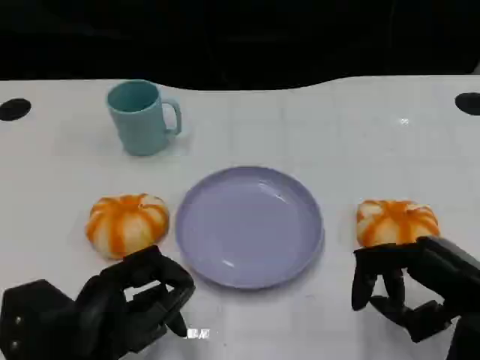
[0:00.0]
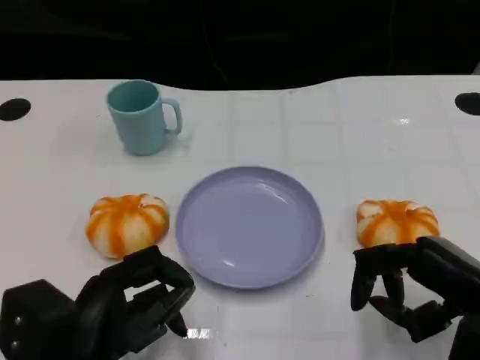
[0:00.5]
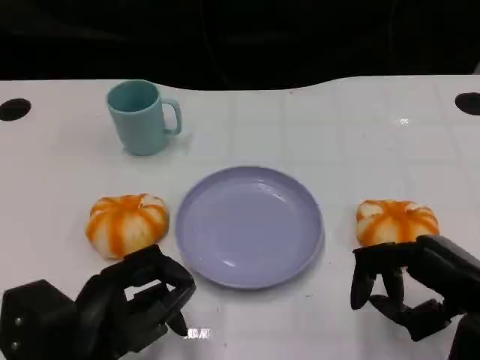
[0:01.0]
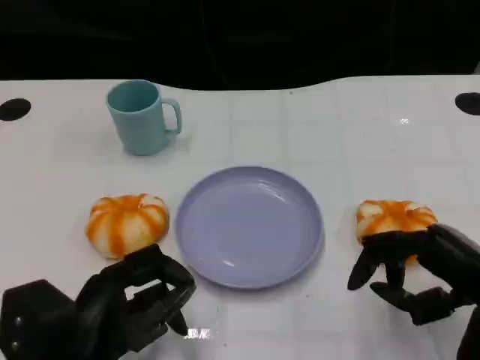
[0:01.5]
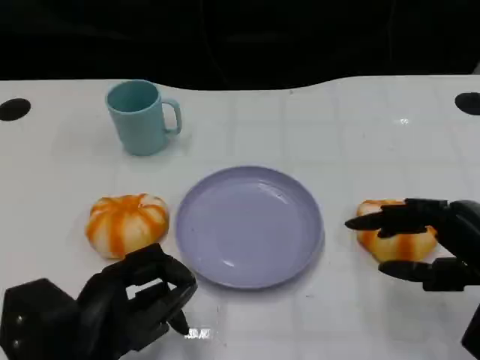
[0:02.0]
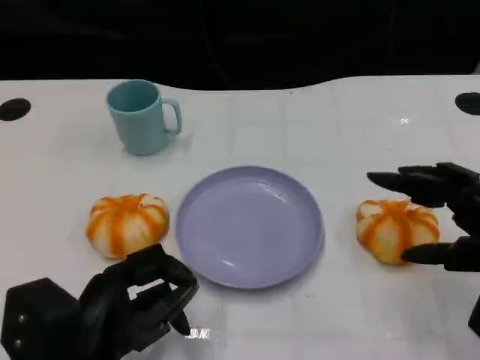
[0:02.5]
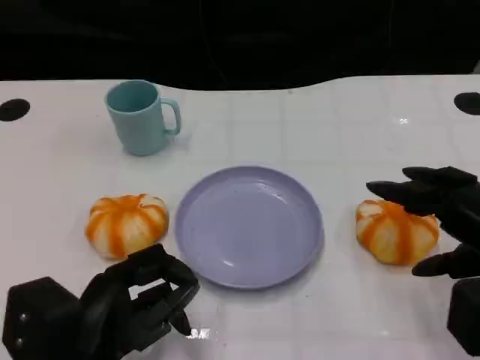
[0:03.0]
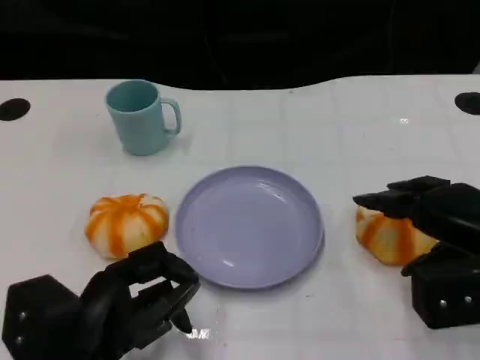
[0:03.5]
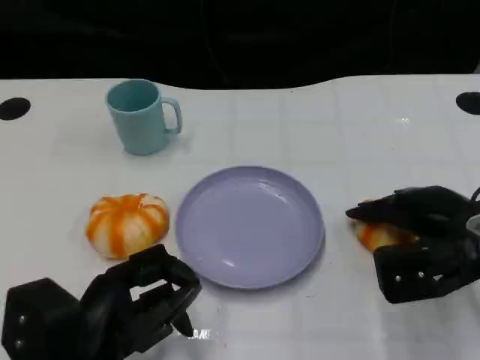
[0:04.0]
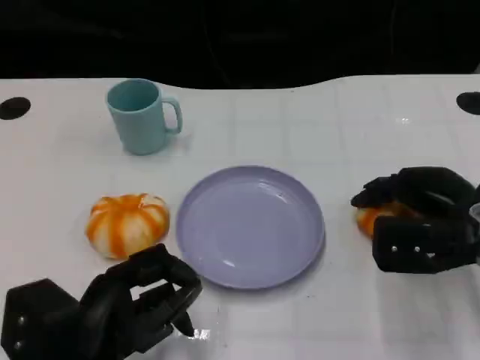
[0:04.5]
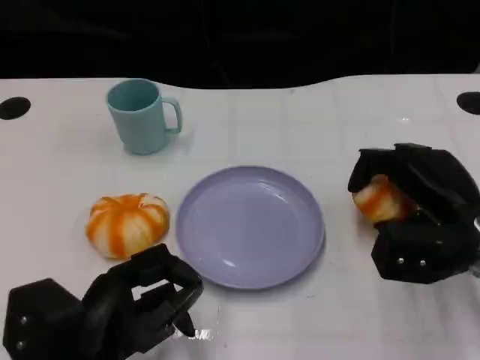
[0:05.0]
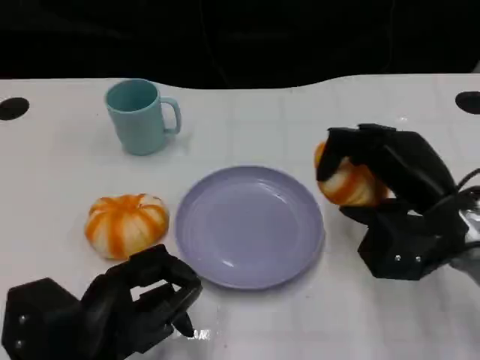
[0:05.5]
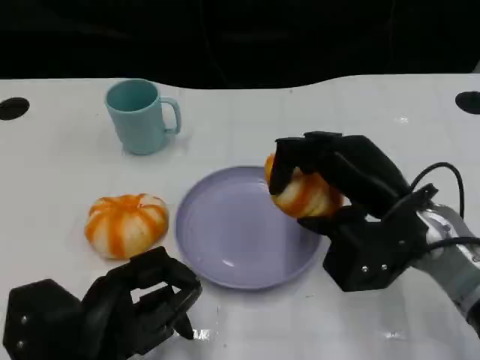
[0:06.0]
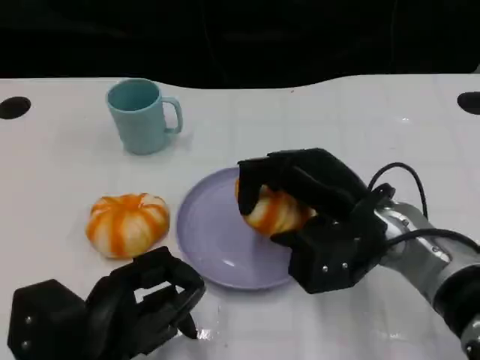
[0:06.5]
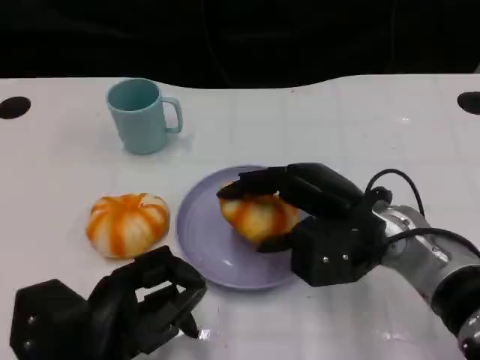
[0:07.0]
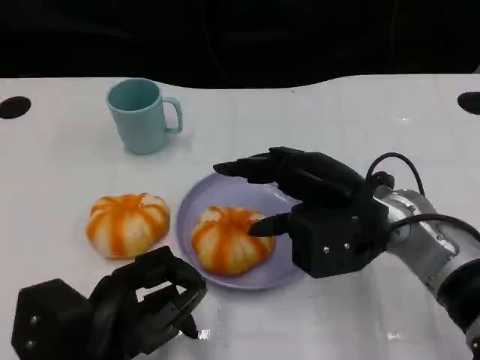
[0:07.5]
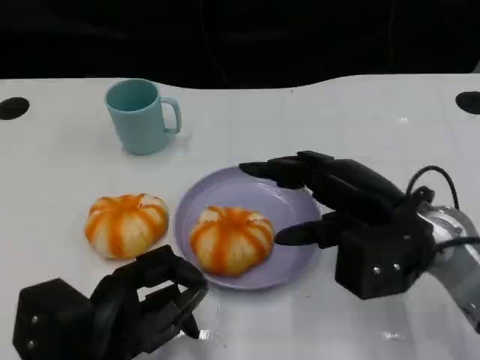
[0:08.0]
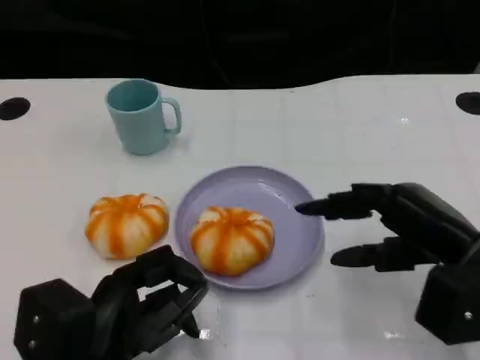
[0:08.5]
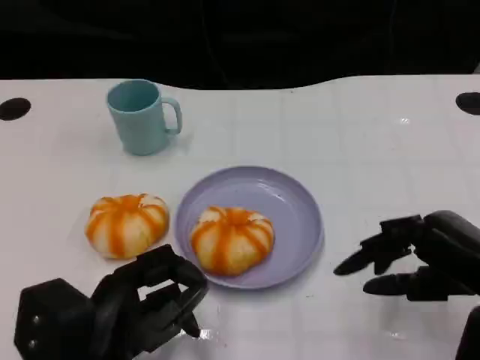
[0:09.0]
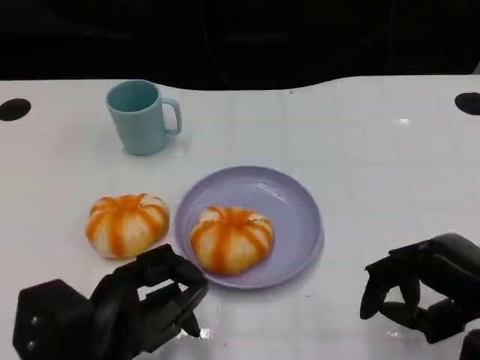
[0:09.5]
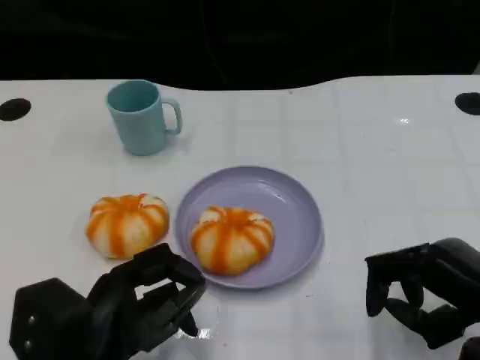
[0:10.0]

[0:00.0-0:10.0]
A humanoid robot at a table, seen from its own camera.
Task of the whole recording: Grasp the bread from the table and place it into the plate.
0:00.0 to 0:02.0: There are only small adjustments of the hands.
0:02.0 to 0:04.0: The right hand is displaced forward by about 10 cm.
0:04.0 to 0:06.0: The right hand heads to the left, covering some 5 cm.
0:06.0 to 0:08.0: The hands stay close to where they were, moving slightly.
0:08.0 to 0:10.0: The right hand is displaced to the right and backward by about 10 cm.

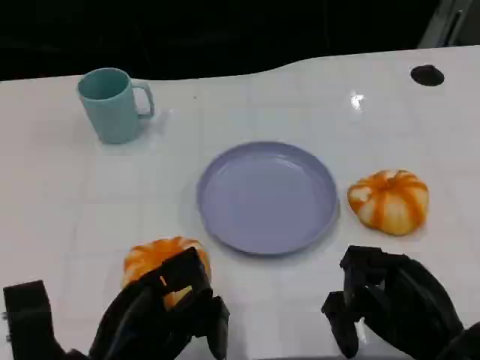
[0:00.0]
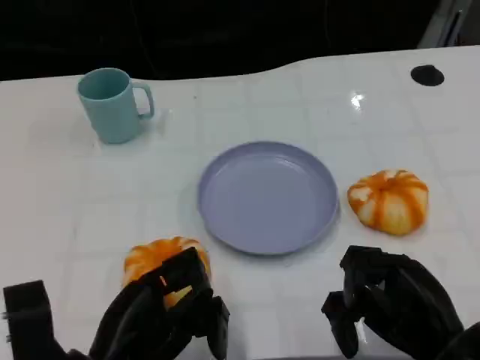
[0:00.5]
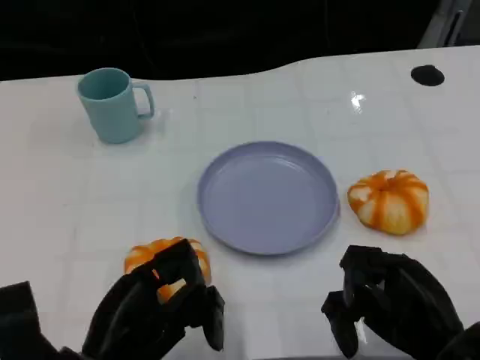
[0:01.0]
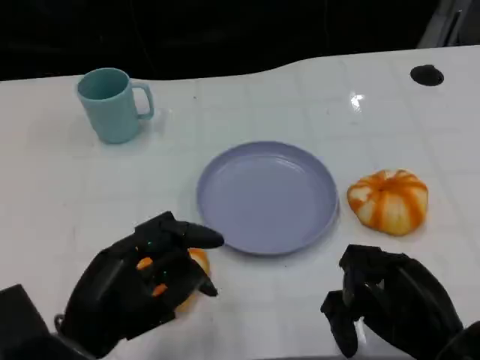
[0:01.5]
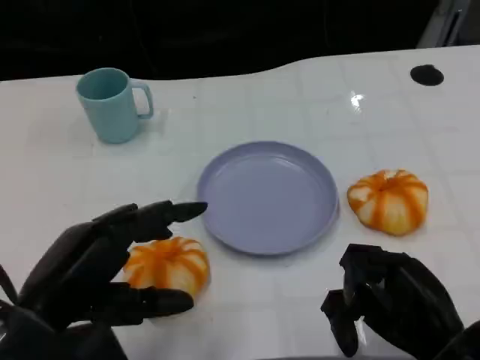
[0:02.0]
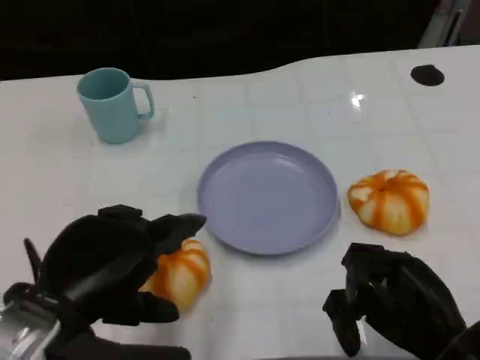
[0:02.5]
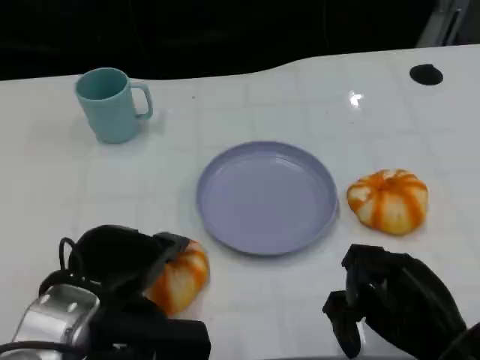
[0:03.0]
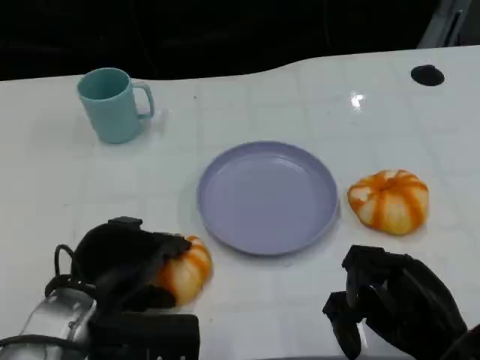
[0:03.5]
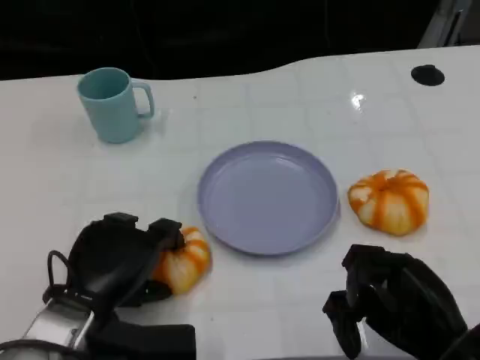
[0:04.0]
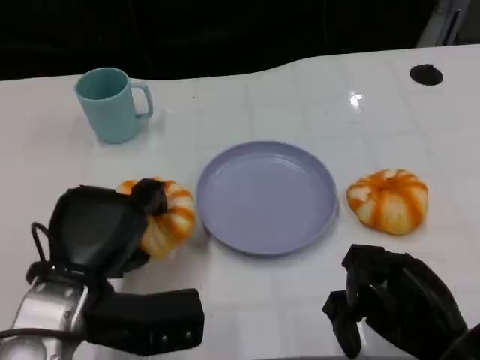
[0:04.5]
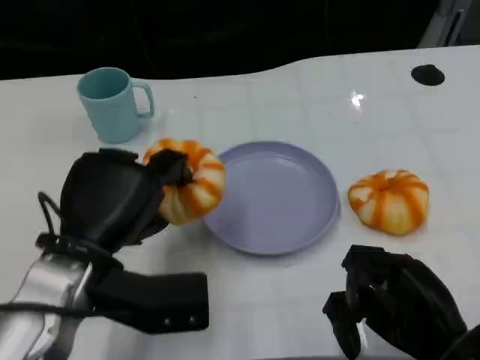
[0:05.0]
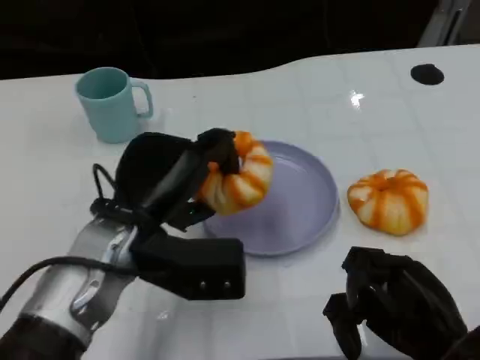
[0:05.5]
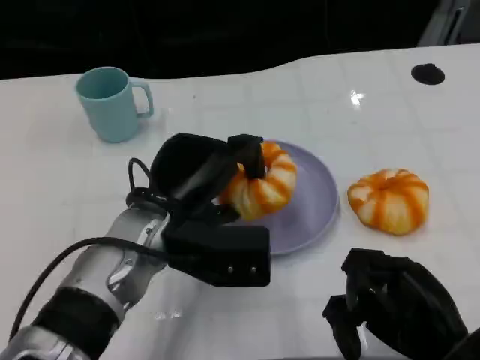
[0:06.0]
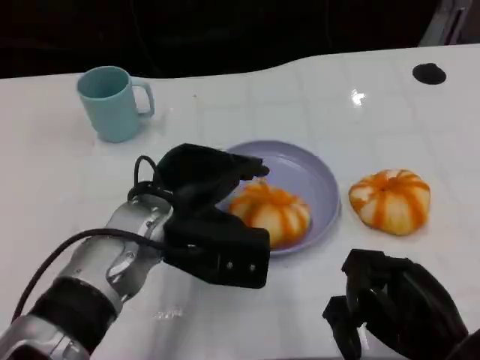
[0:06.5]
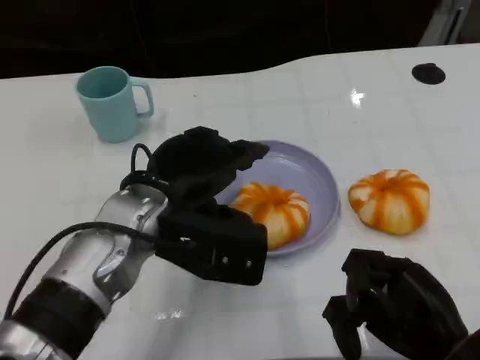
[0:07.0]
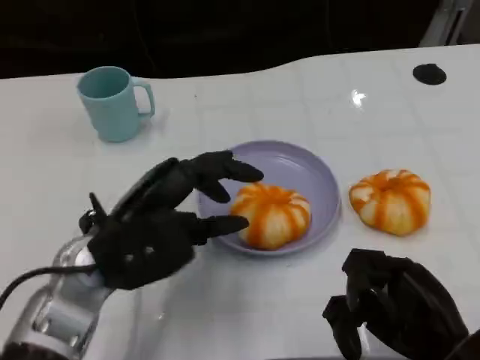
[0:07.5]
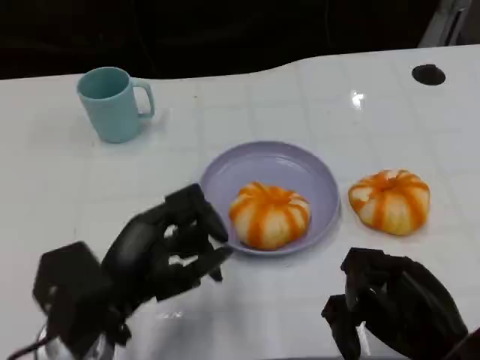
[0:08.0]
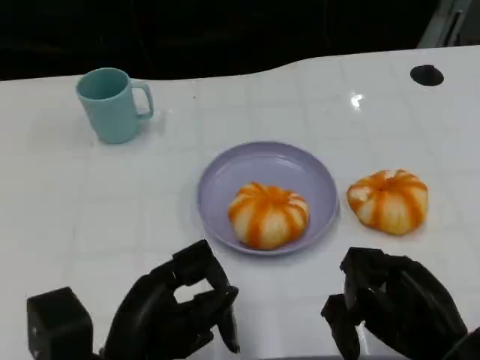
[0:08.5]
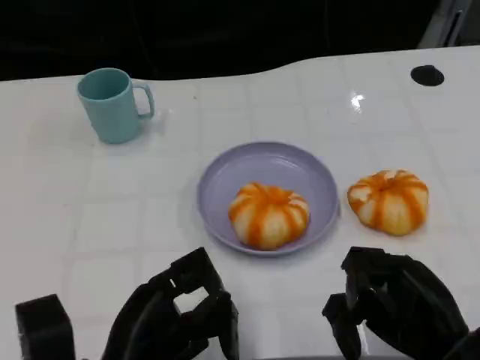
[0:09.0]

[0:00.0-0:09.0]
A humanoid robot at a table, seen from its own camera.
Task of the whole recording: Grasp the bread from the table and place it into the plate.
0:00.0 to 0:02.0: The left hand heads upward, covering approximately 10 cm.
0:02.0 to 0:04.5: The left hand heads forward, covering about 5 cm.
0:04.5 to 0:07.0: The left hand heads to the right and forward, covering approximately 10 cm.
0:07.0 to 0:09.0: The left hand goes approximately 15 cm backward and downward.

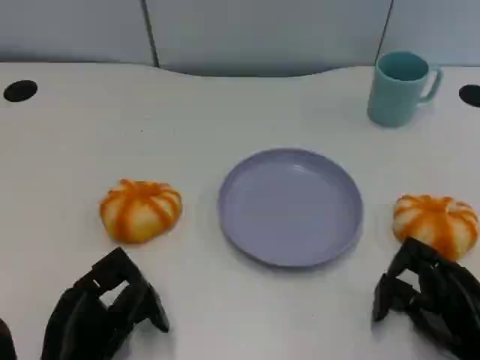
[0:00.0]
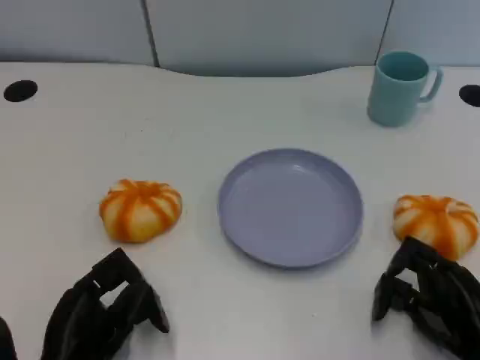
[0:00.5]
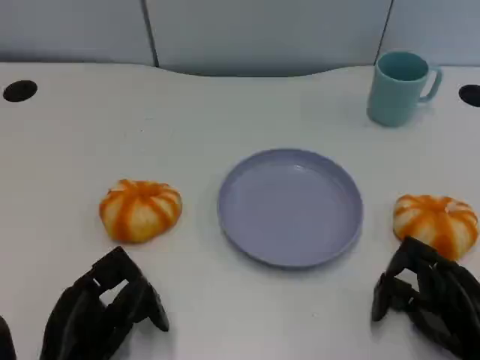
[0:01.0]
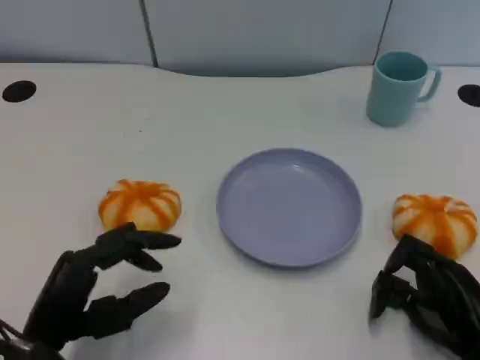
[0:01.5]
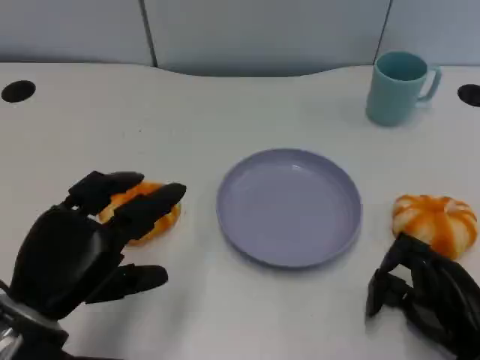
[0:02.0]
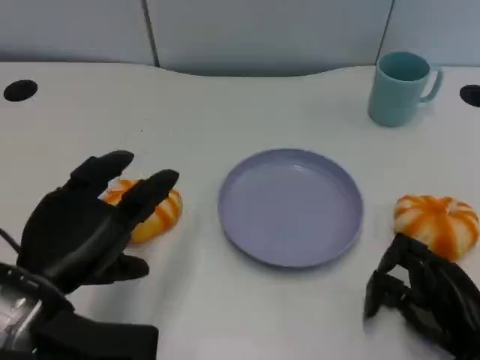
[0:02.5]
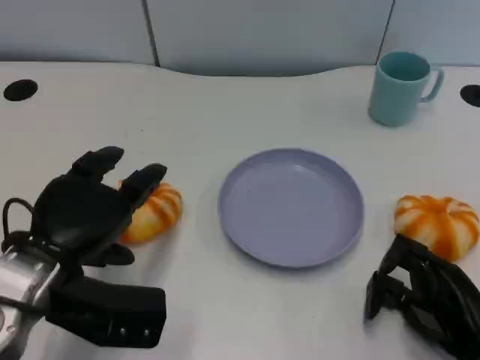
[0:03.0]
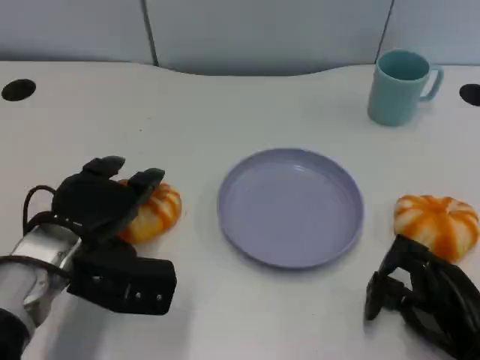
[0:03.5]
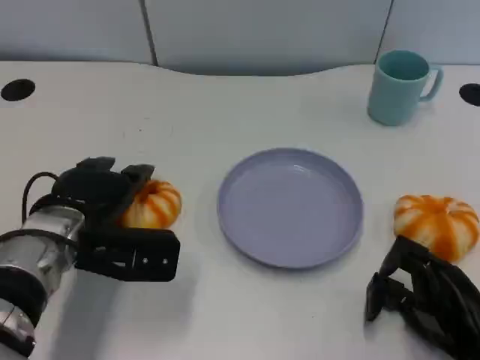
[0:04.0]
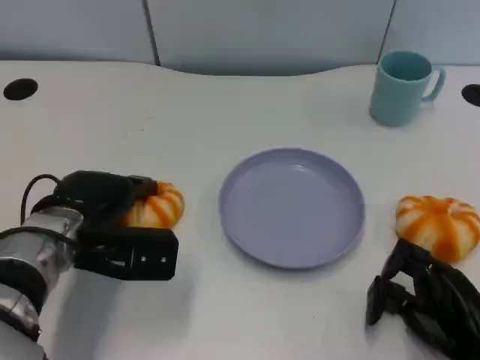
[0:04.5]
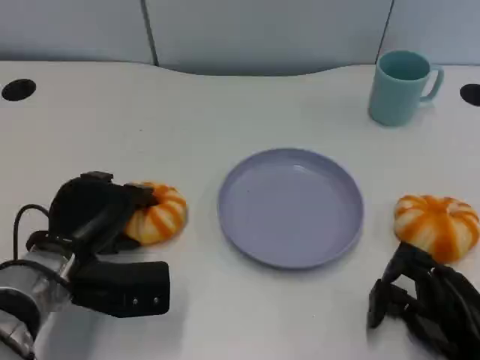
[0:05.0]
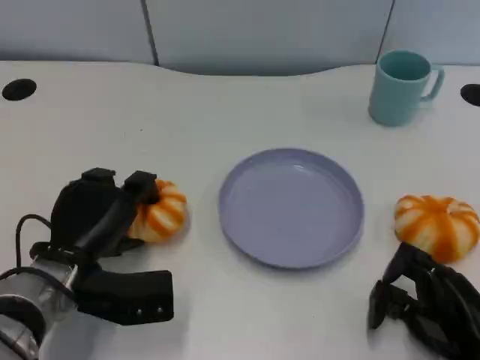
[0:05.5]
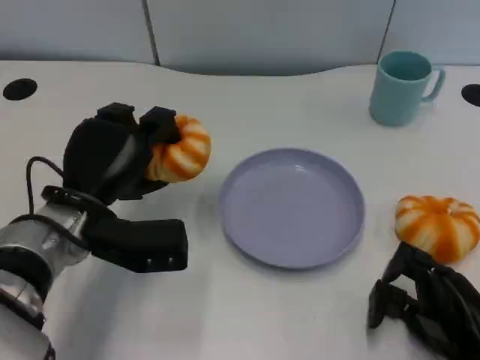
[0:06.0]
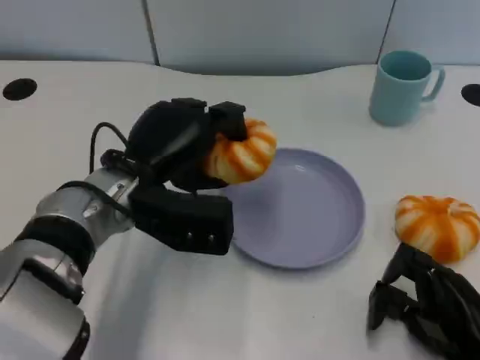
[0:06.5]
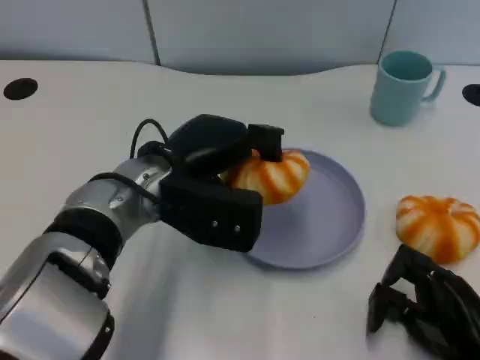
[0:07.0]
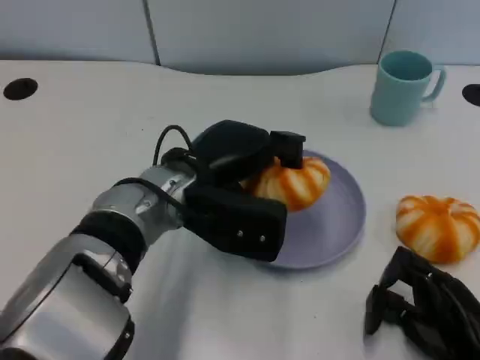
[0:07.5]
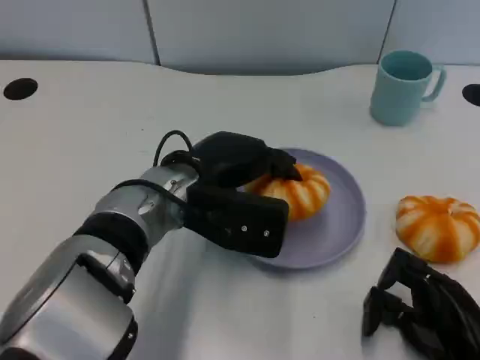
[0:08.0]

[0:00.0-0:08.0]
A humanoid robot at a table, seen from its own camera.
Task of the whole recording: Grasp the bread from the table and place it into the plate.
0:00.0 to 0:02.0: The left hand goes some 10 cm upward.
0:02.0 to 0:04.0: The left hand heads forward, covering approximately 10 cm.
0:06.0 to 0:08.0: The left hand shifts some 10 cm to the right.
